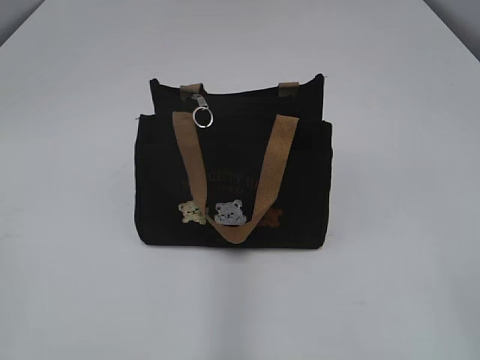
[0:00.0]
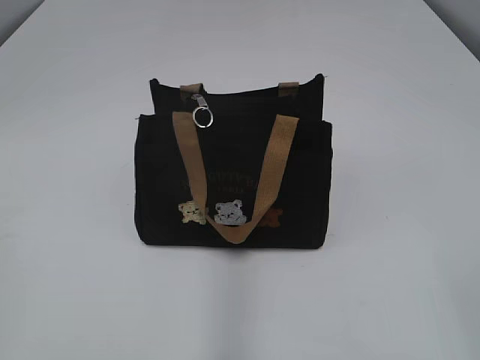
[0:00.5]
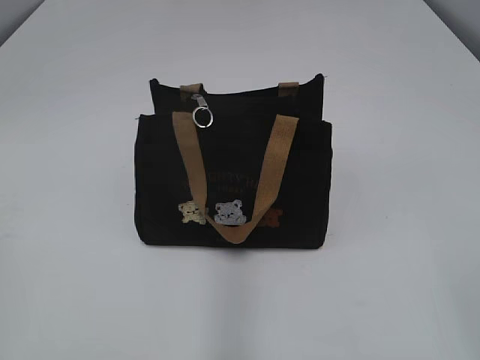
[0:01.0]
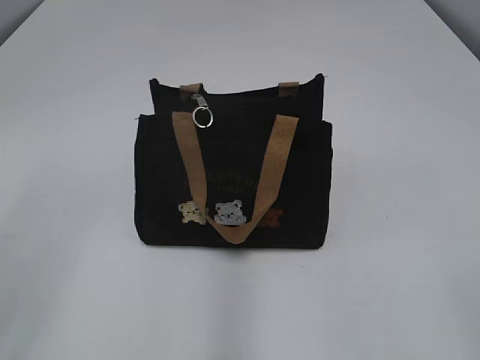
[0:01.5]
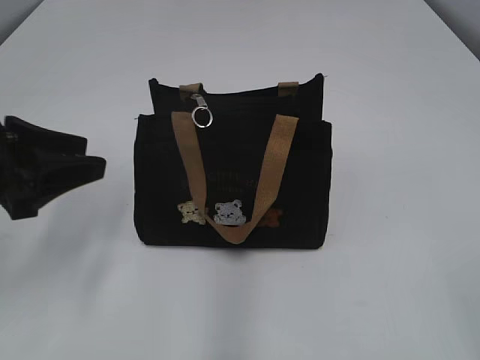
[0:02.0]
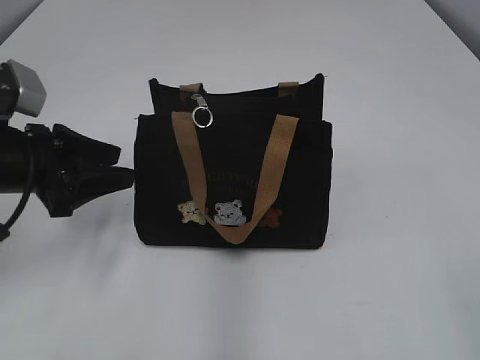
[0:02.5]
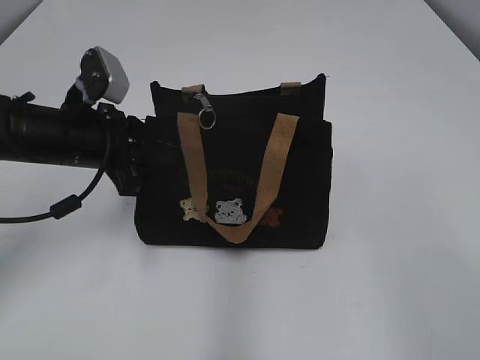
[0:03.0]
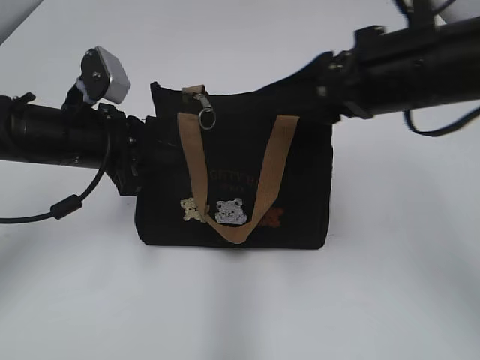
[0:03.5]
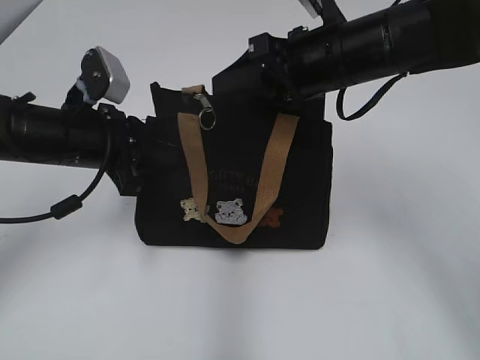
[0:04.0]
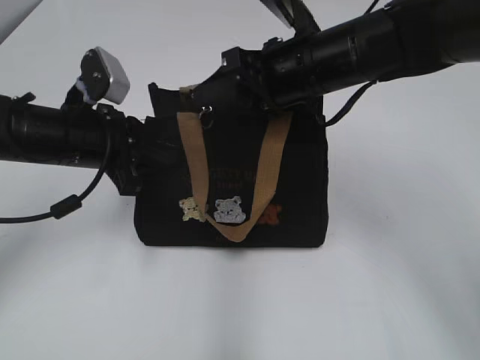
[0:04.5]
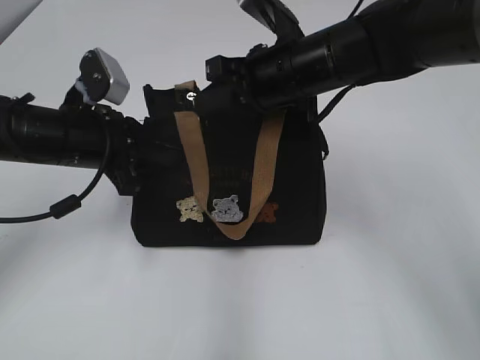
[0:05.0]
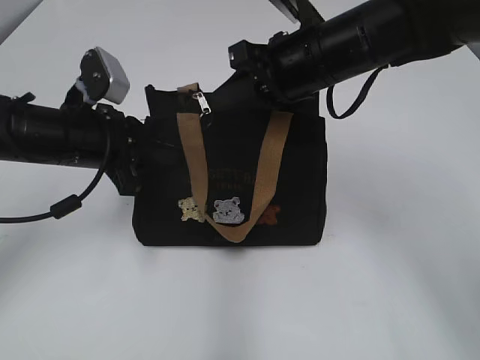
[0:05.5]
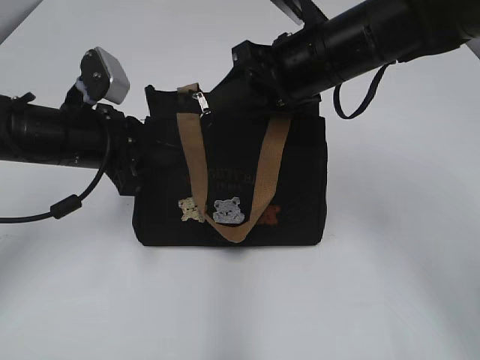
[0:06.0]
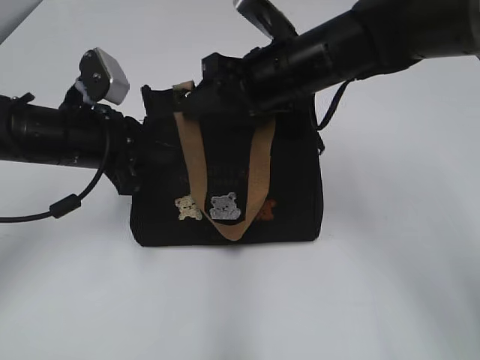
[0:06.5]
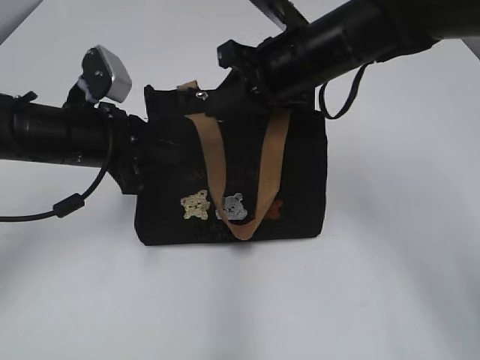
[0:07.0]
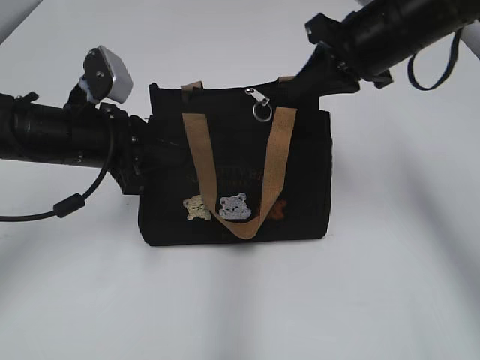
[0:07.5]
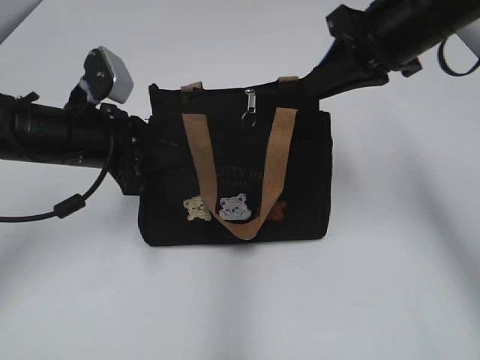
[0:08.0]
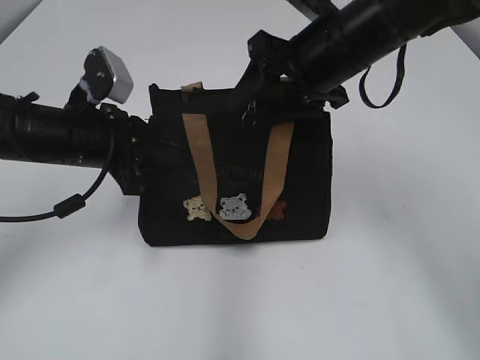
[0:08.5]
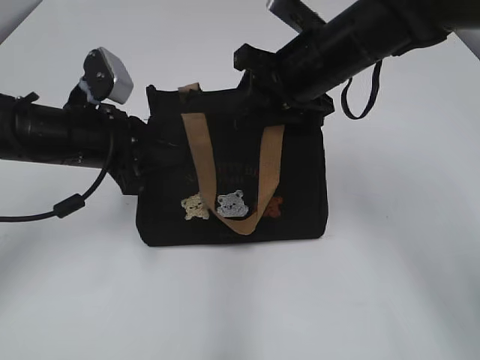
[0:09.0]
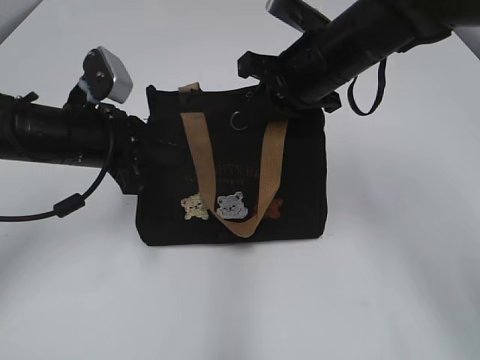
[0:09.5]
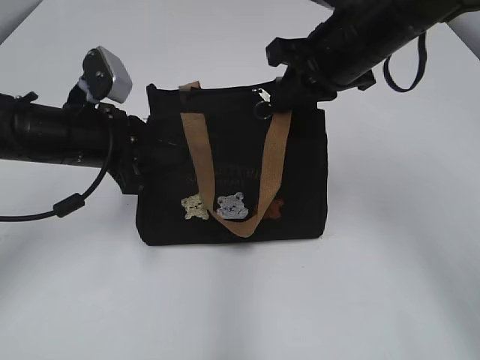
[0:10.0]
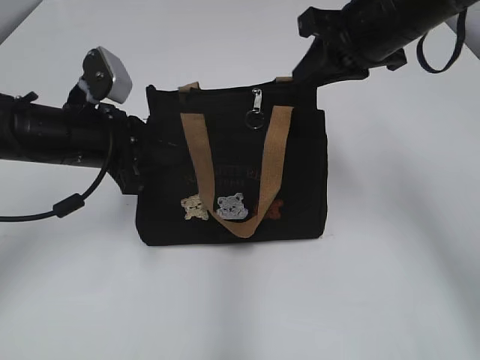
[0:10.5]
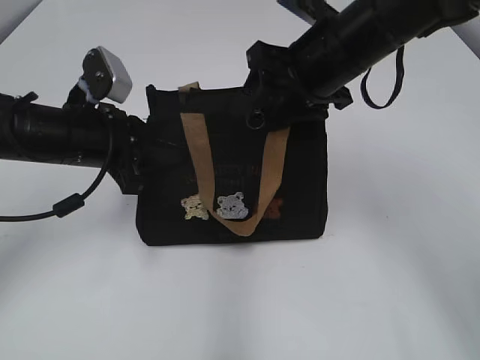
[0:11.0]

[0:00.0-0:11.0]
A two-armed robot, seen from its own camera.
0:02.0 to 0:03.5: The right gripper goes approximately 30 cm forward and to the left. The left gripper travels forward and to the right by about 10 cm, and closes its fingers.
0:03.5 to 0:05.5: The right gripper goes about 10 cm forward and to the left, and closes its fingers.
0:05.5 to 0:07.5: The right gripper shifts approximately 5 cm to the right, and opens and closes again.
0:07.5 to 0:09.0: The right gripper travels to the left by roughly 5 cm, and opens up.
0:09.0 to 0:11.0: The right gripper closes, then opens again.

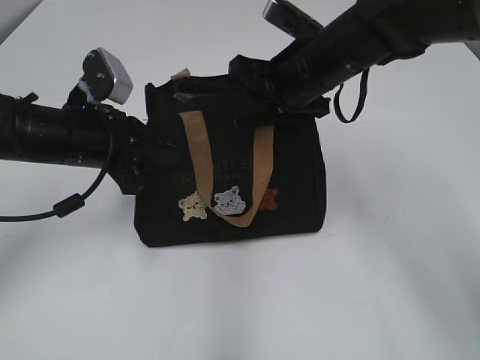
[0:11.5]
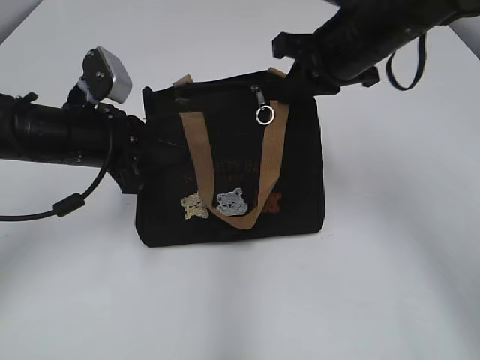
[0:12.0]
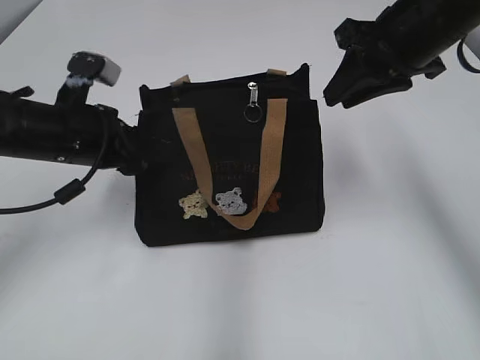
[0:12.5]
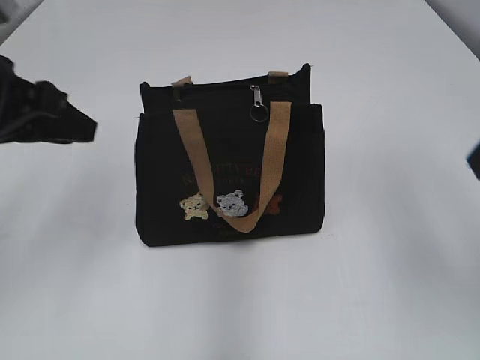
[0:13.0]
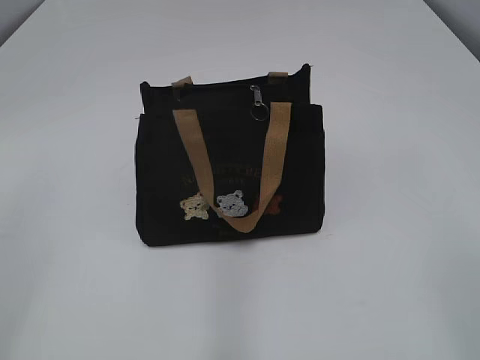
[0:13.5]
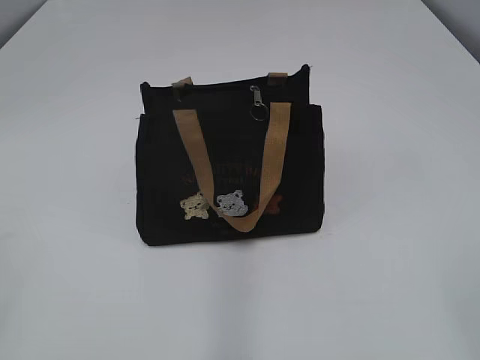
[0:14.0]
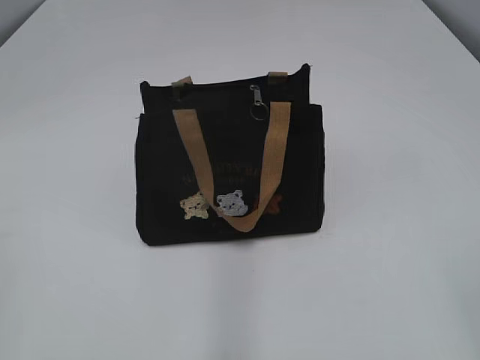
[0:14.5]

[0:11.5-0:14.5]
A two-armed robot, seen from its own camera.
0:11.5 to 0:13.0: The right gripper goes about 25 cm backward, to the right and upward, and closes, then reopens. The left gripper is displaced upward and backward by about 10 cm, and opens up.
0:13.0 to 0:14.5: Both grippers travel together backward, roughly 25 cm.

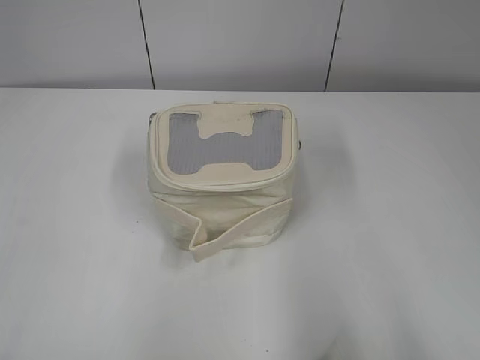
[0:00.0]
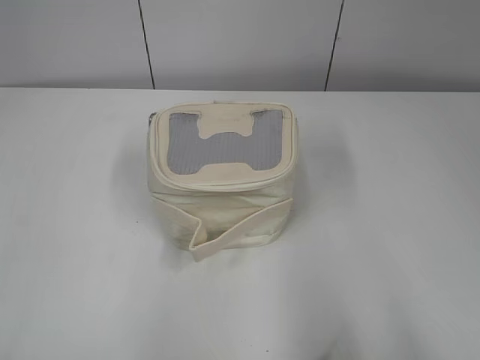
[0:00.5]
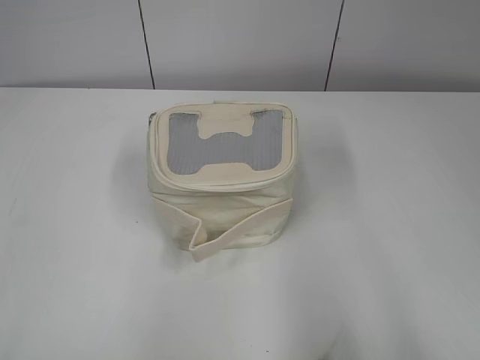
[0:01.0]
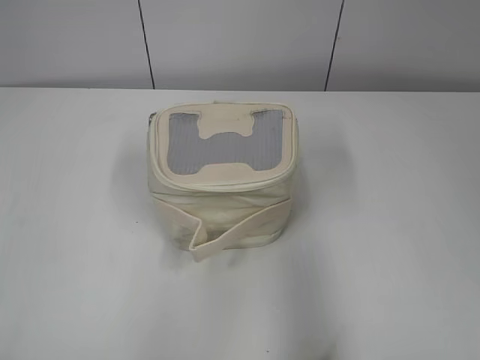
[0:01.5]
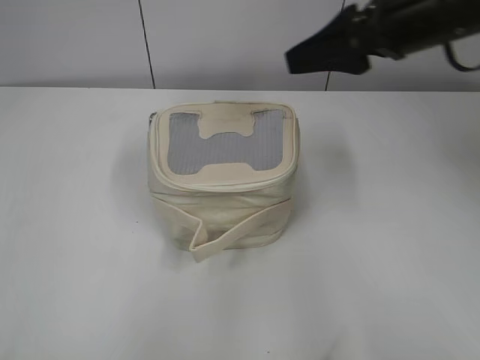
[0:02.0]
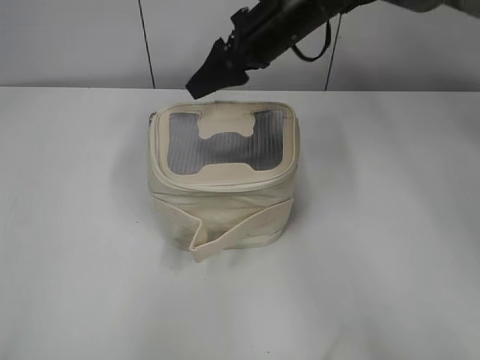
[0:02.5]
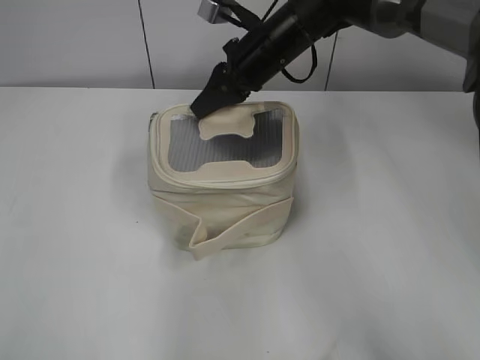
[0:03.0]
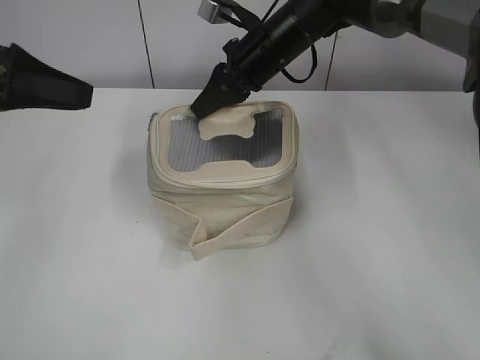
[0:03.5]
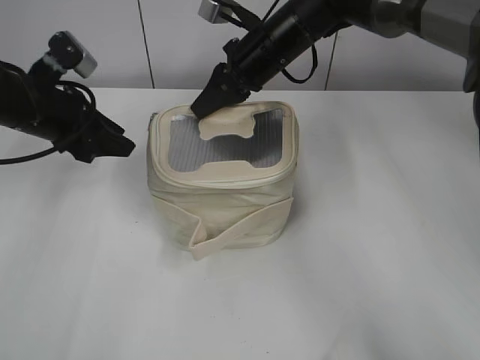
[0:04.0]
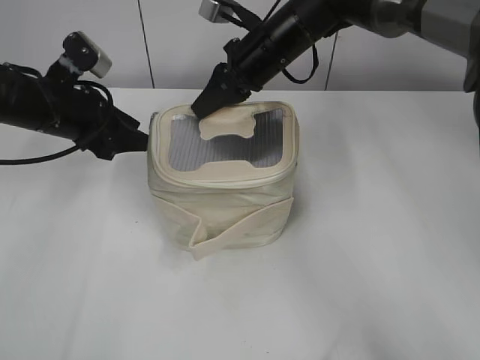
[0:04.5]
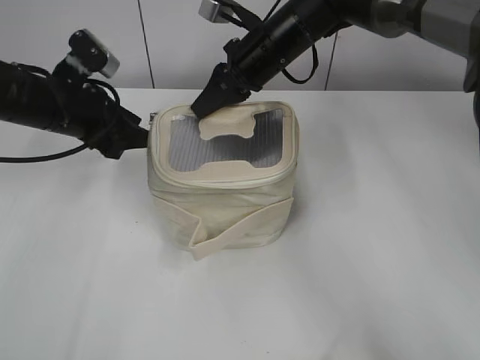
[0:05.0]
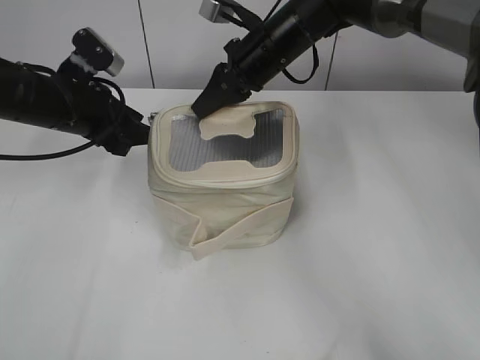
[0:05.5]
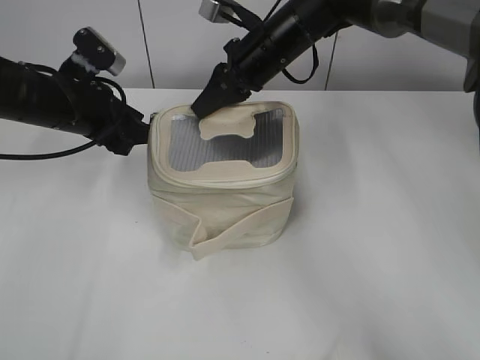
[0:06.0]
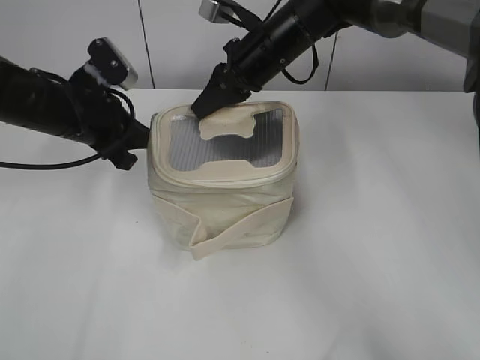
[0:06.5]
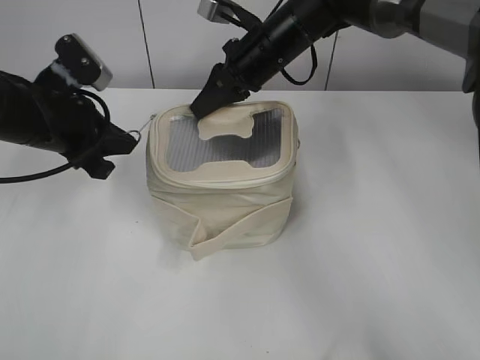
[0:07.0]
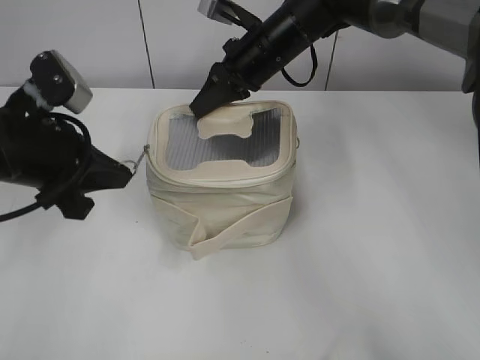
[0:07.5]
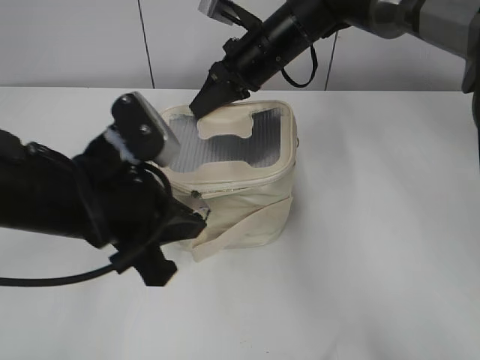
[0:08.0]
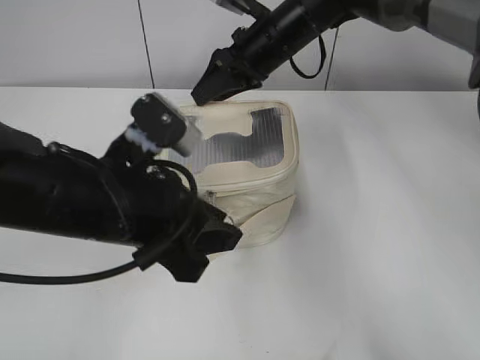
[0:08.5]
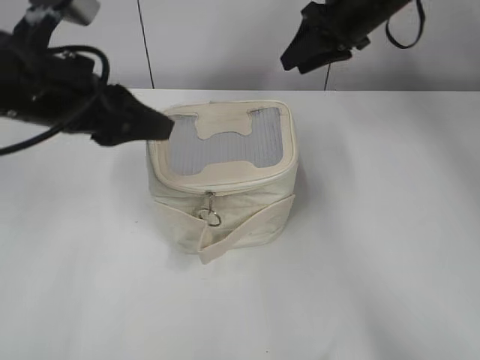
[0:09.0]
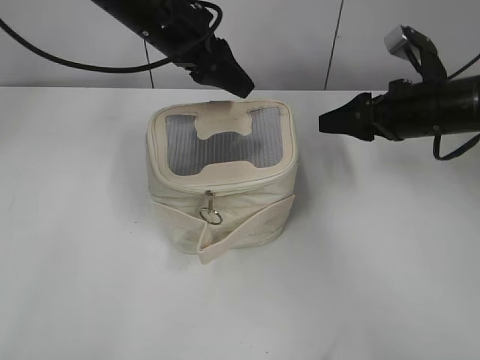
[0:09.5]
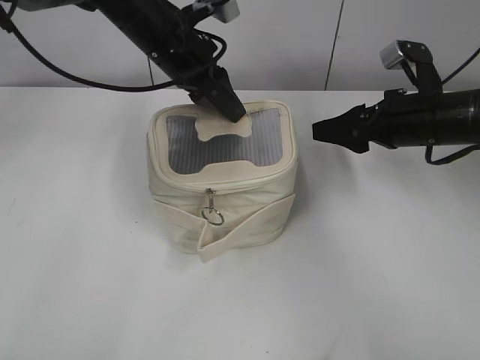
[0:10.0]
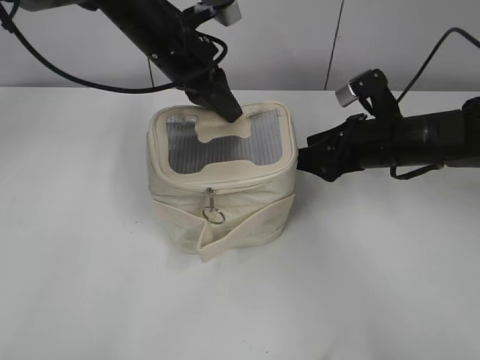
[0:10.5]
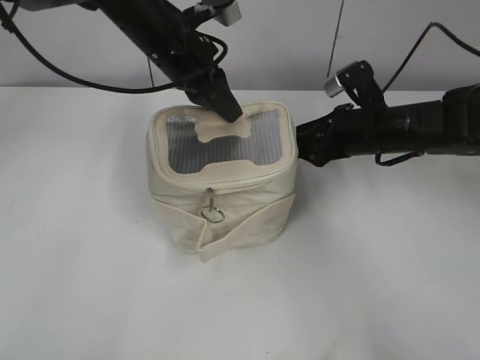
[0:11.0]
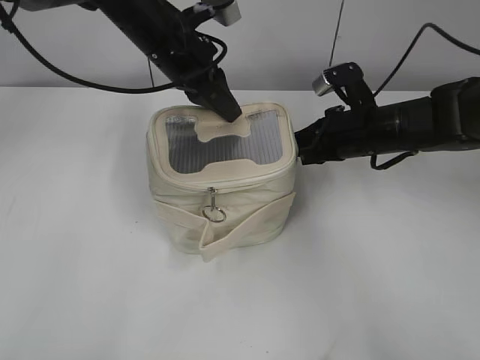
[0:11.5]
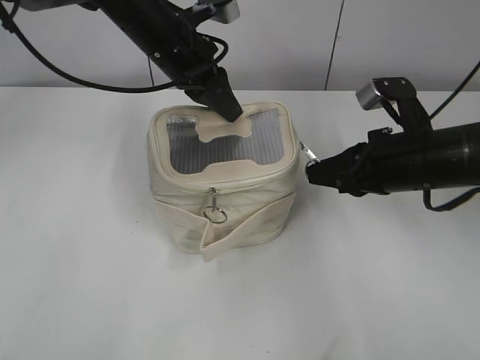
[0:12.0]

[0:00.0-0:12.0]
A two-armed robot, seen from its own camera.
Step, 0:00.0 to 0:08.0: Zip up the bag with your left hand.
0:02.0 to 0:04.0: The right gripper shifts about 20 cm to the left, forward and downward, and closes up; the left gripper goes roughly 35 cm forward.
0:04.0 to 0:06.0: The grippers make only small movements.
0:06.0 to 0:08.0: The left gripper heads backward and to the right, covering about 20 cm, and closes up.
0:08.0 to 0:10.0: The left gripper moves forward, approximately 20 cm, and opens. The right gripper goes approximately 20 cm to the right and backward, and opens up.
0:10.0 to 0:12.0: The right gripper shifts some 5 cm backward, and closes its fingers. The left gripper closes.
